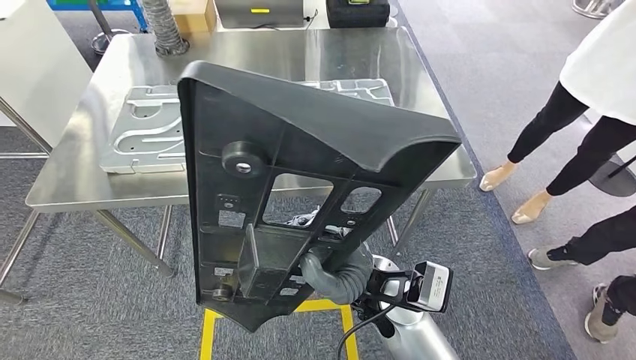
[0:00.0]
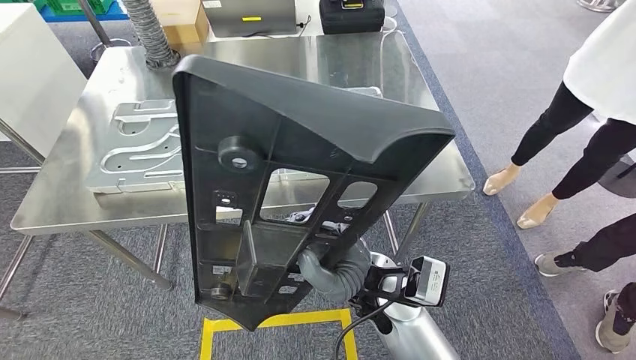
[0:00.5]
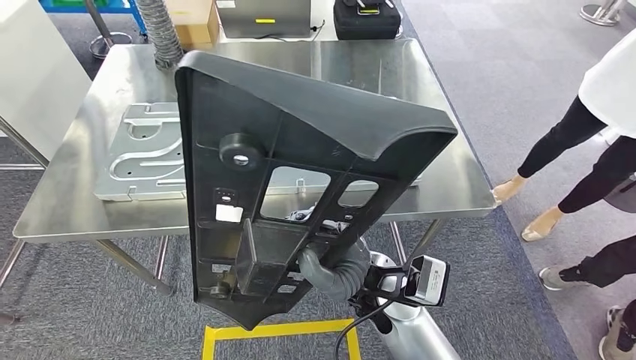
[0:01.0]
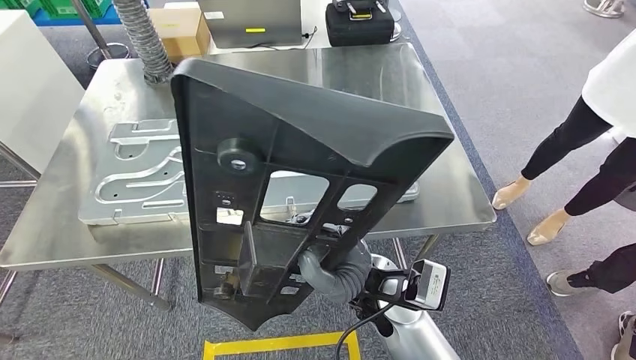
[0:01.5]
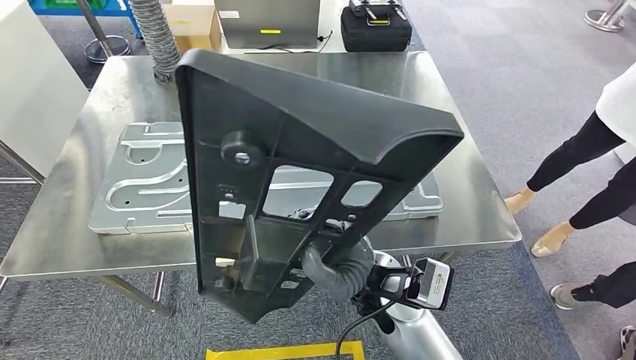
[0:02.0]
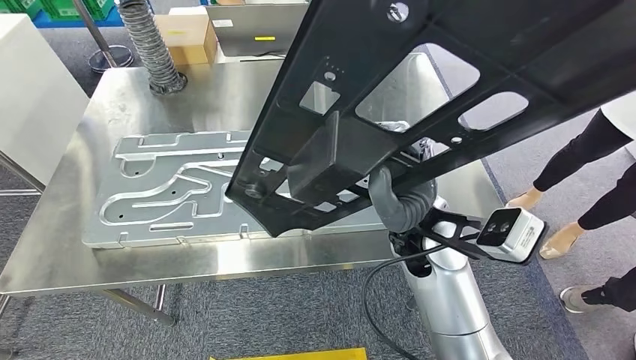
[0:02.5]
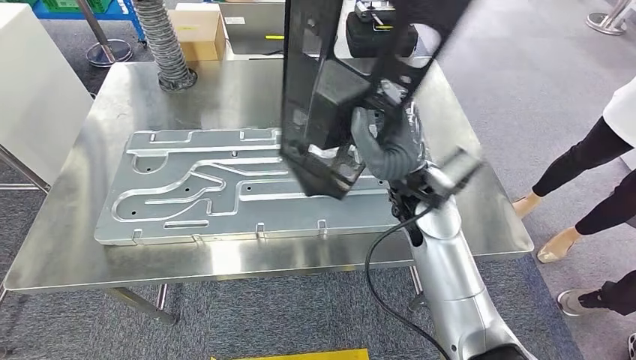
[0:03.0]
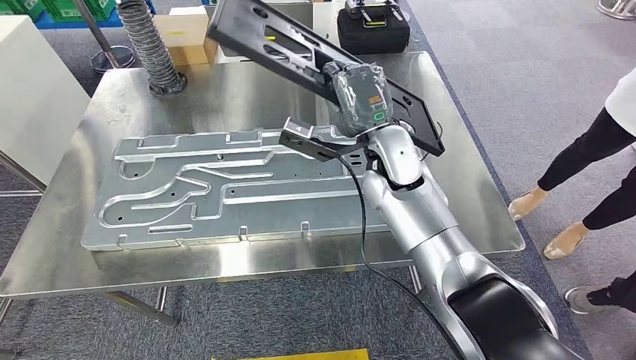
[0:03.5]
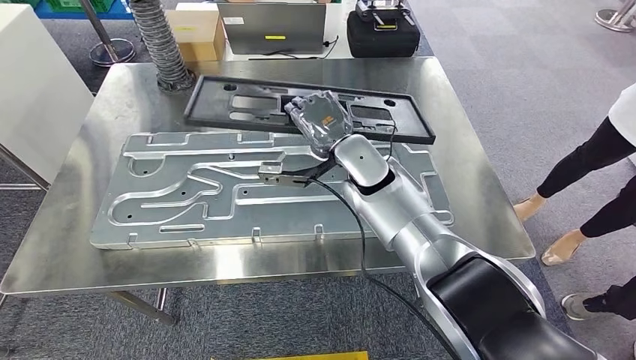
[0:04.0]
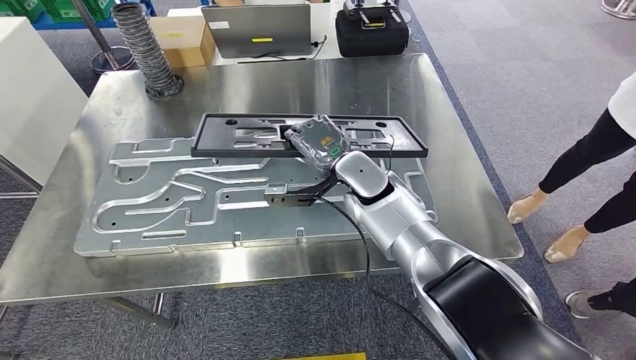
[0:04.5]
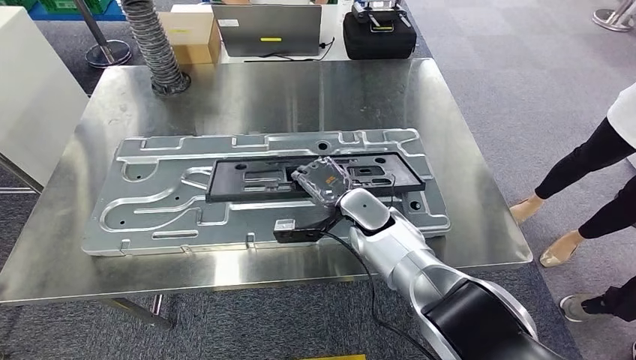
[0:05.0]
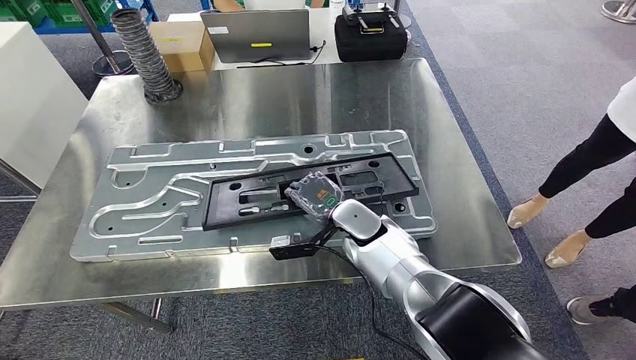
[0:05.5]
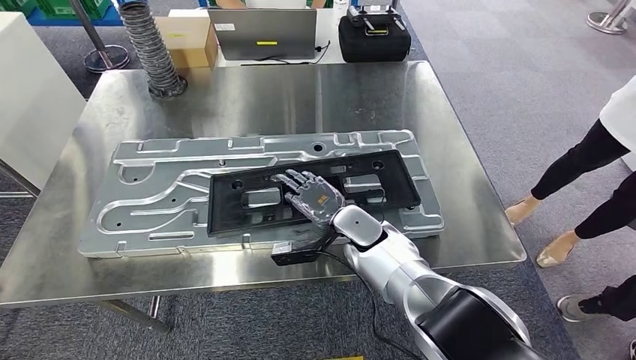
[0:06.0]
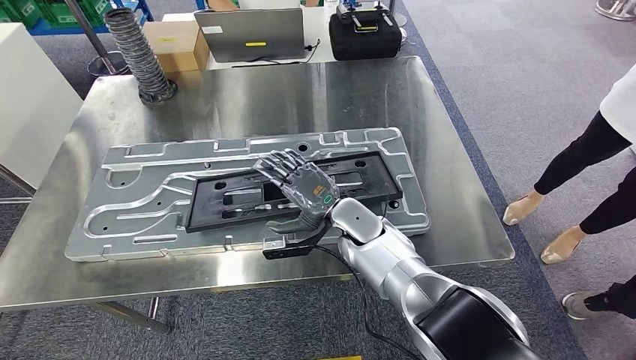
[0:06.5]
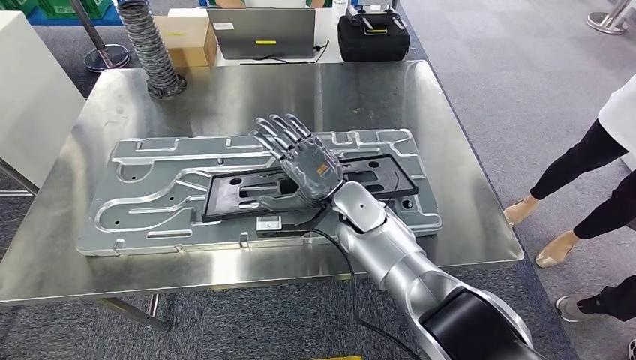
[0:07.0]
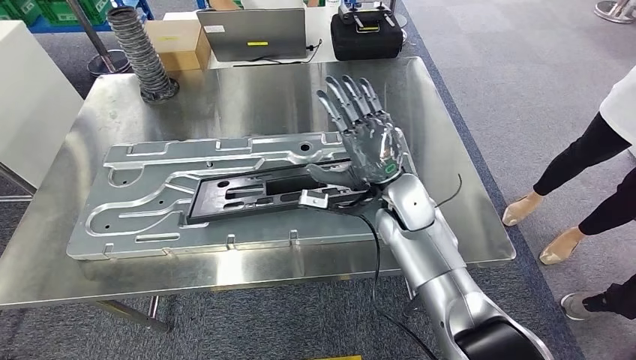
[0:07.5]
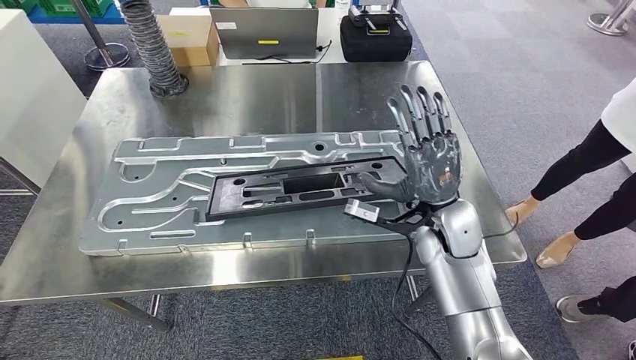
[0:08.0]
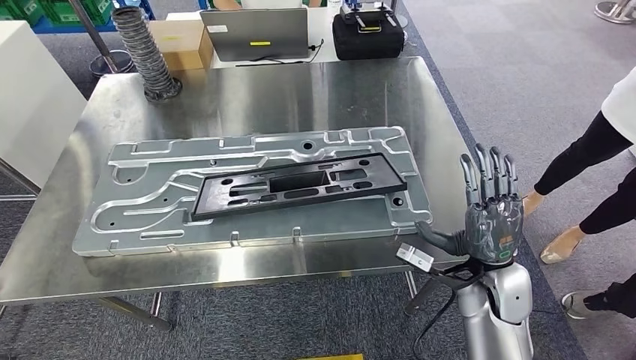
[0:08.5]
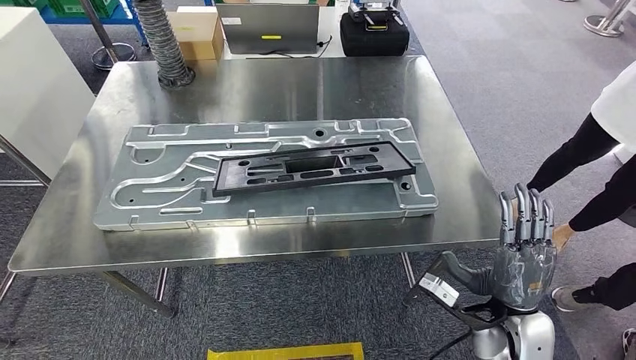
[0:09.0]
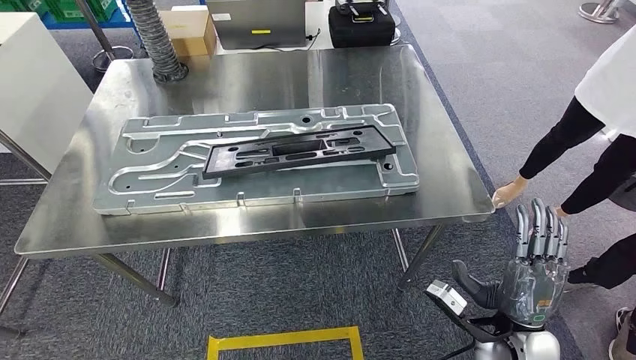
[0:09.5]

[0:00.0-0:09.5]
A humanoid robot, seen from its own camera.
Step, 0:00.0 to 0:06.5: Insert the large material into the corresponding slot on the workbench.

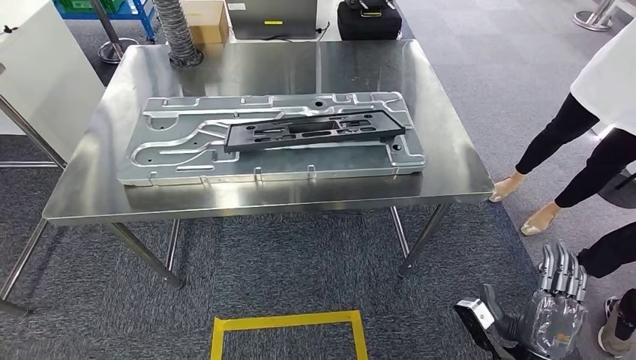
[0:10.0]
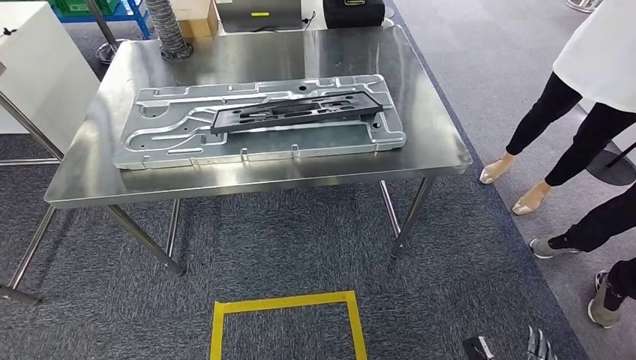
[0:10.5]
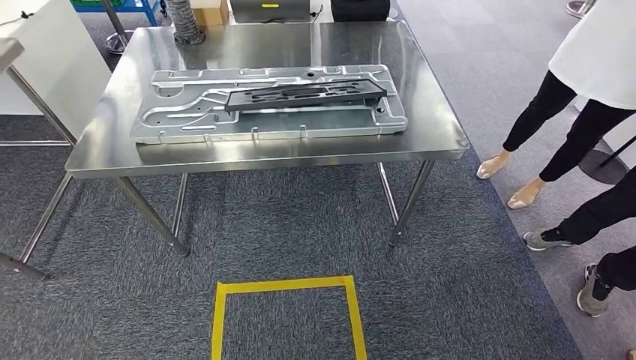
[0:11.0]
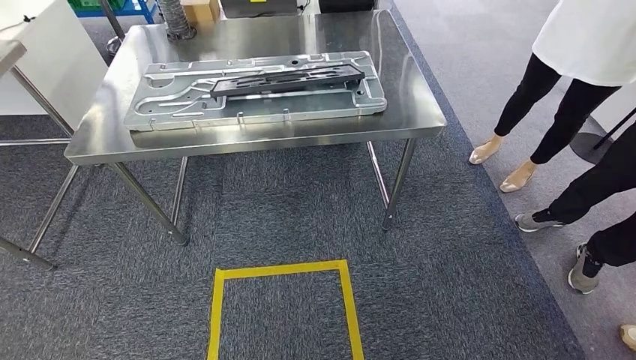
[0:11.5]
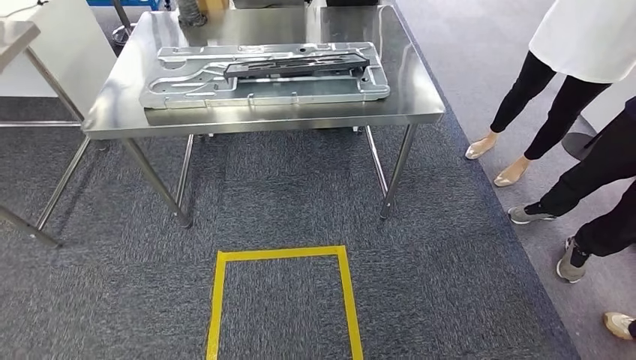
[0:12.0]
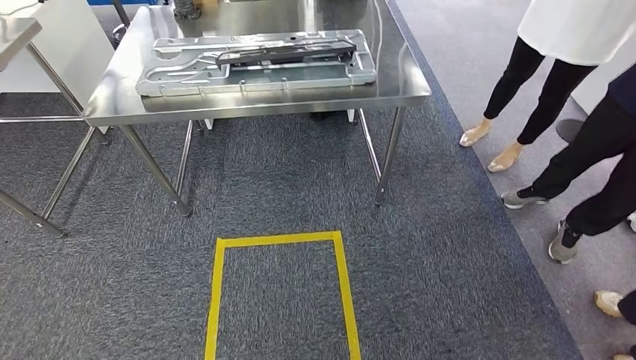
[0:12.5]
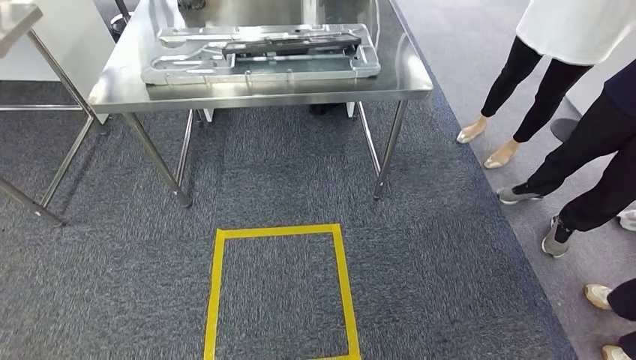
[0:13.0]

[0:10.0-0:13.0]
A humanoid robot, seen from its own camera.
Step, 0:10.0 to 0:13.0: Return to the initial position at the shelf.

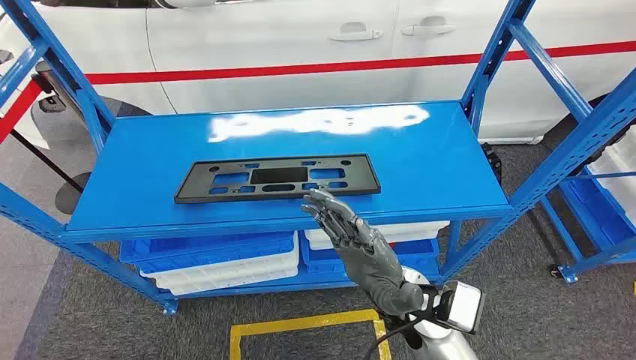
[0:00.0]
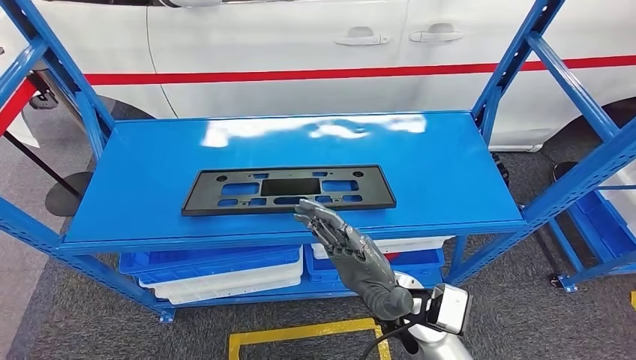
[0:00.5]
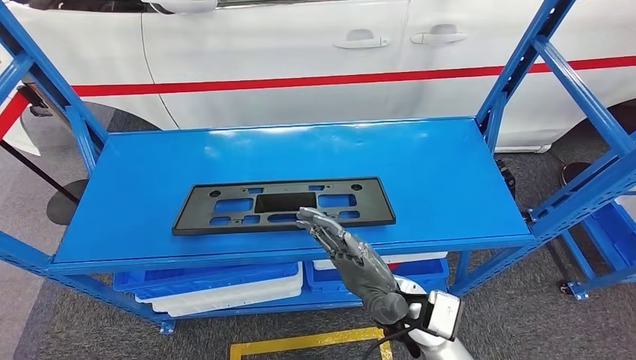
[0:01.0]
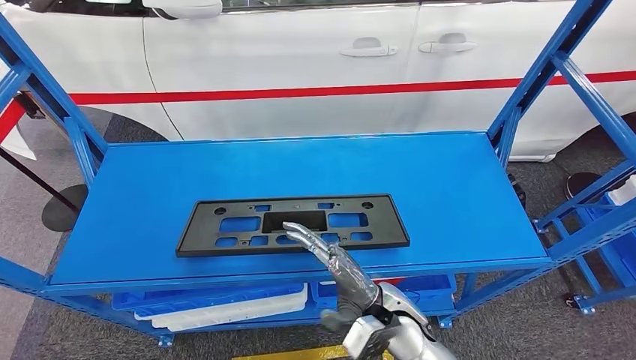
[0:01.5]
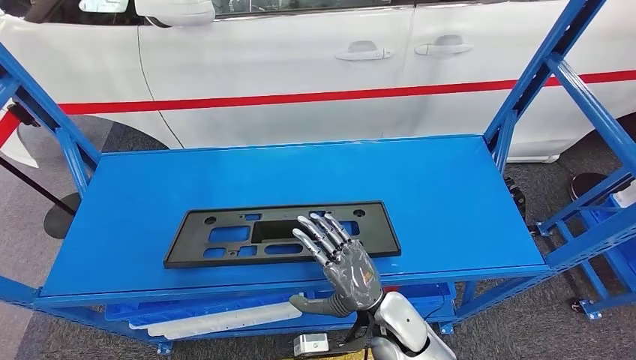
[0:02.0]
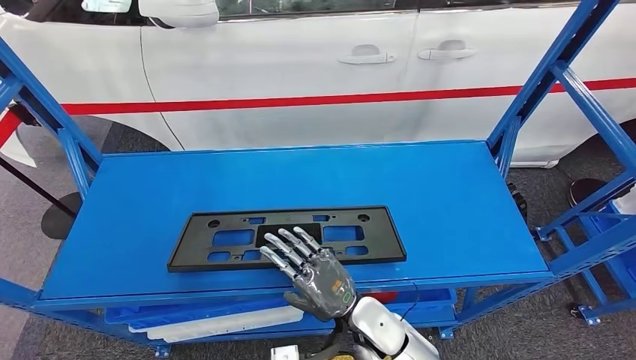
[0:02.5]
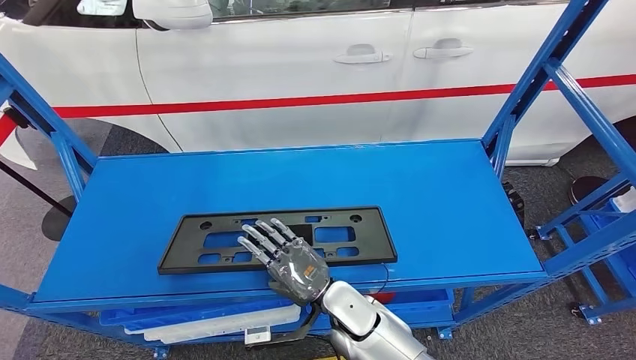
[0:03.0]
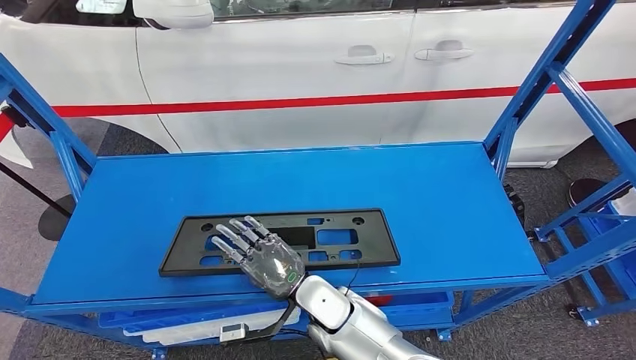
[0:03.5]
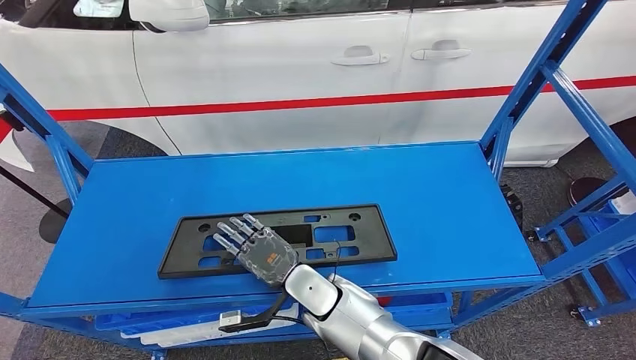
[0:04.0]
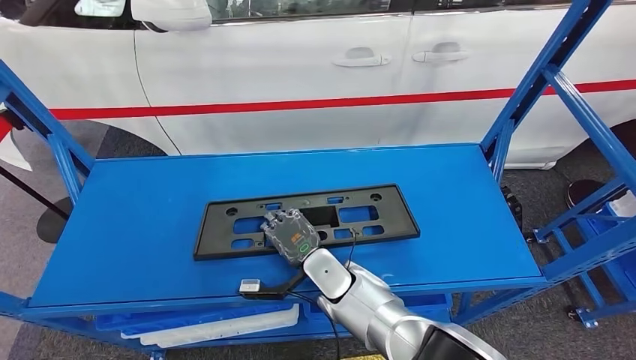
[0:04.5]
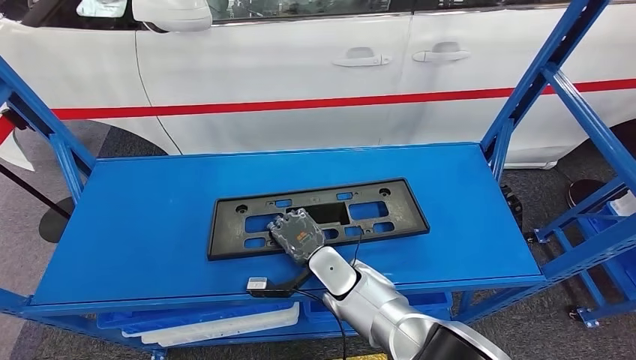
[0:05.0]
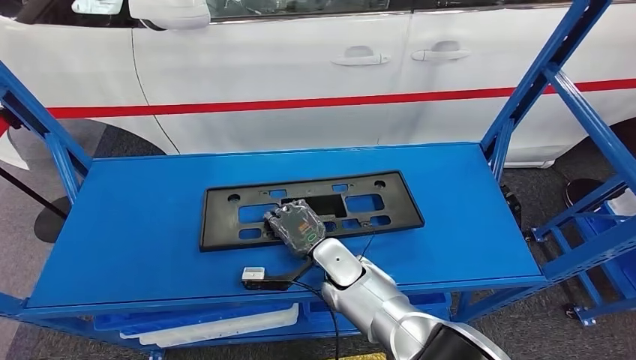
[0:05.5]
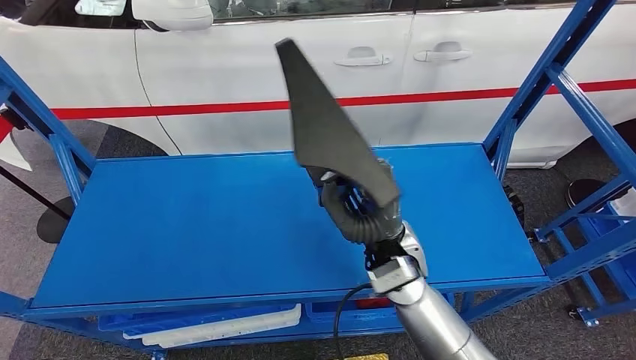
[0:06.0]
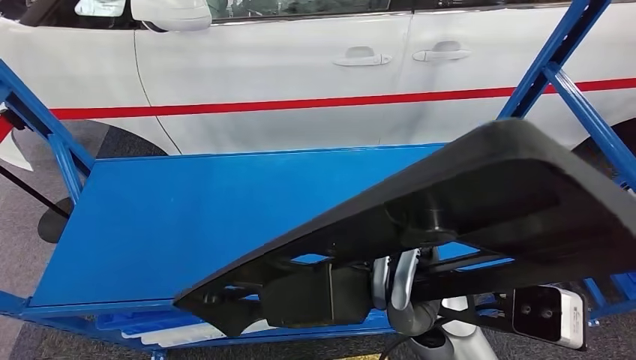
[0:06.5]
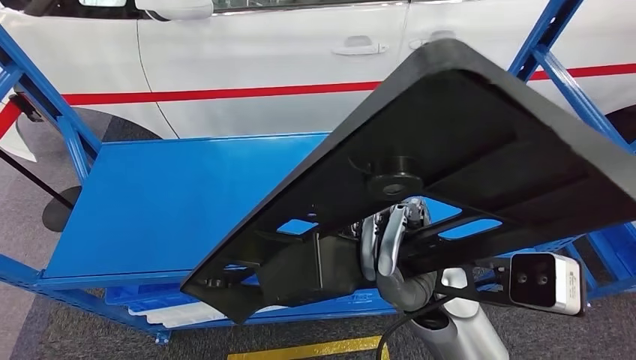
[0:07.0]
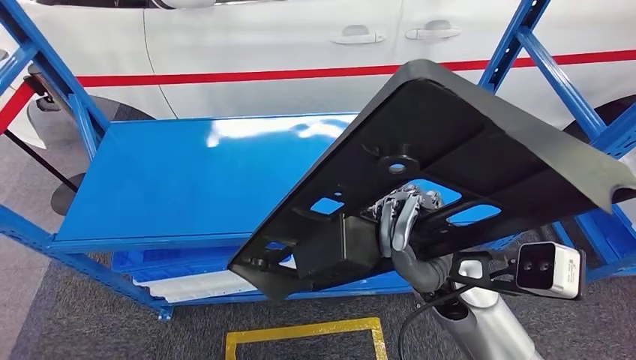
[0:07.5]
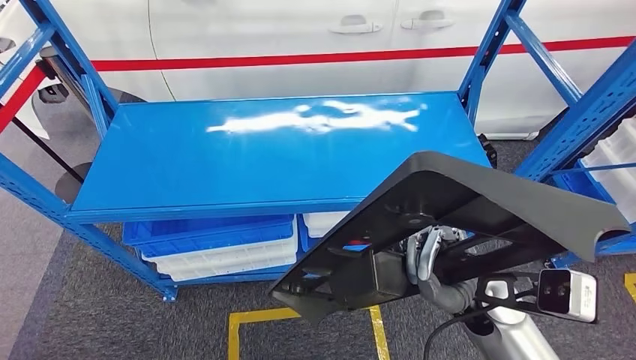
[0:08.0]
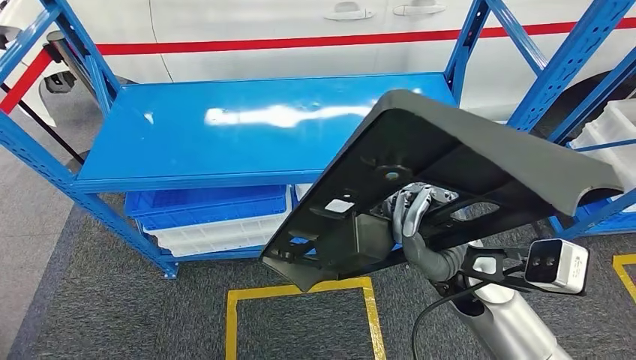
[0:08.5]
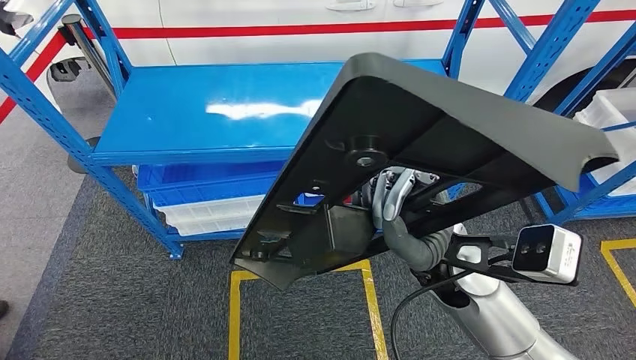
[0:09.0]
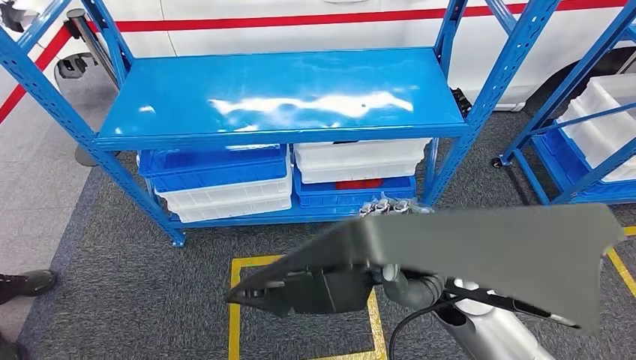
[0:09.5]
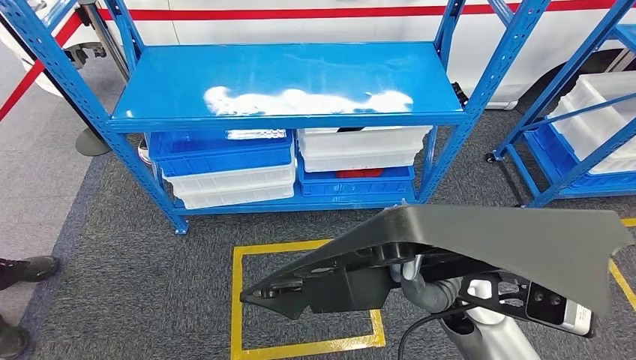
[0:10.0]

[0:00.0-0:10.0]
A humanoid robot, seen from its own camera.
Step, 0:00.0 to 0:06.5: Pick up the large material from the shelf.
